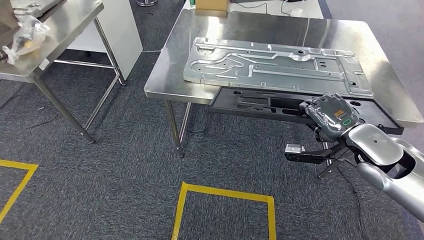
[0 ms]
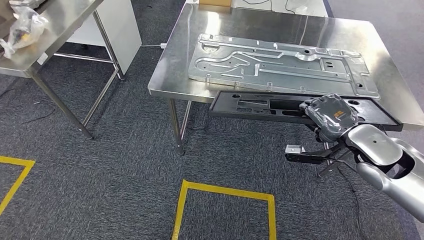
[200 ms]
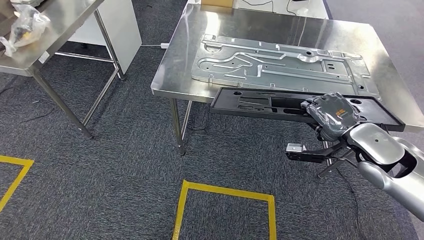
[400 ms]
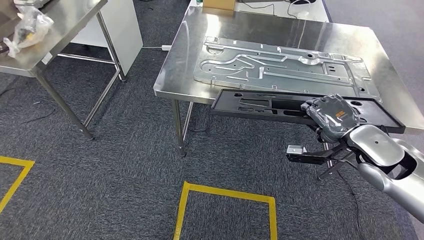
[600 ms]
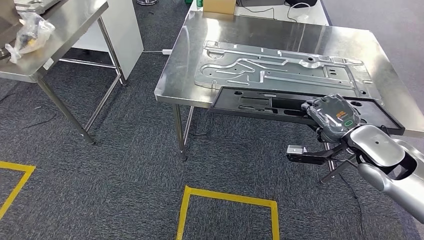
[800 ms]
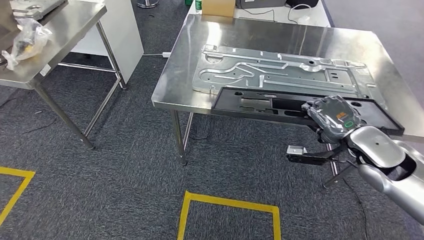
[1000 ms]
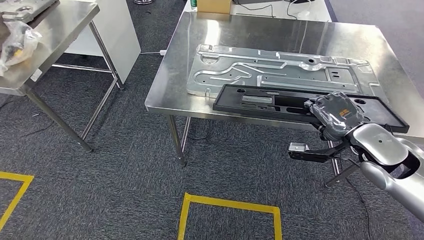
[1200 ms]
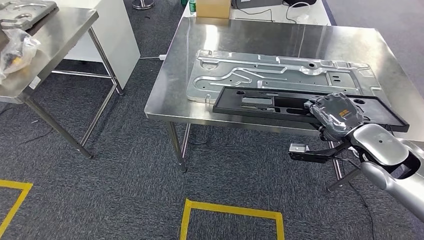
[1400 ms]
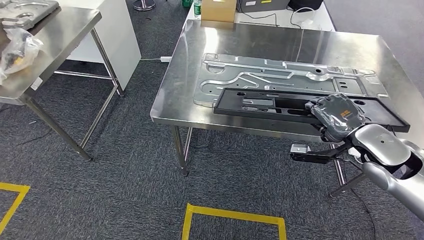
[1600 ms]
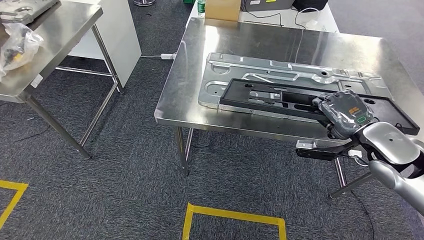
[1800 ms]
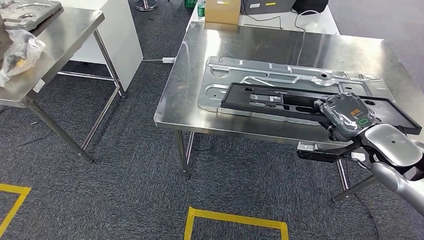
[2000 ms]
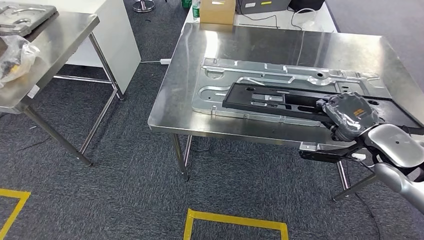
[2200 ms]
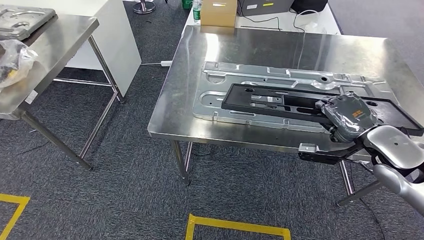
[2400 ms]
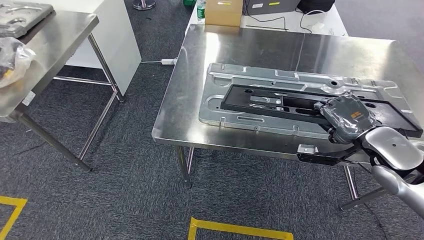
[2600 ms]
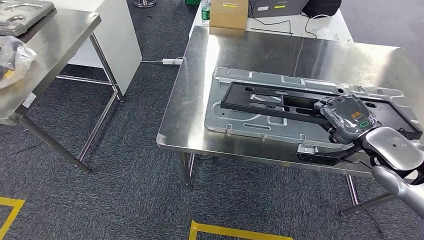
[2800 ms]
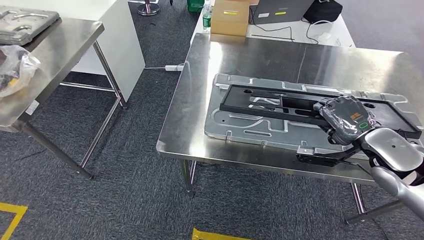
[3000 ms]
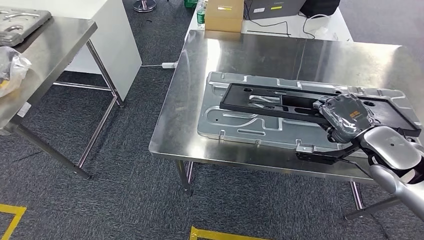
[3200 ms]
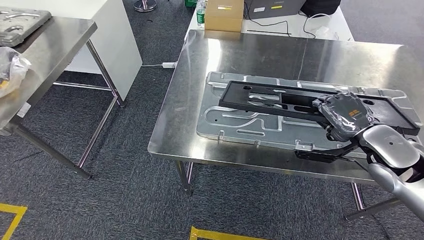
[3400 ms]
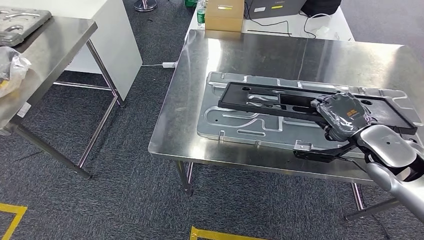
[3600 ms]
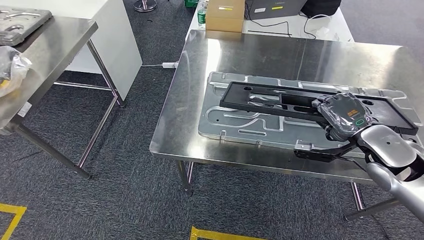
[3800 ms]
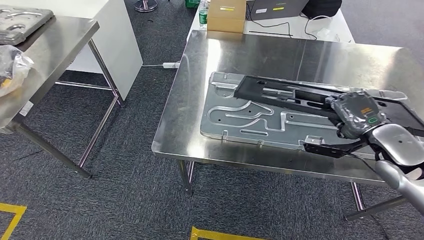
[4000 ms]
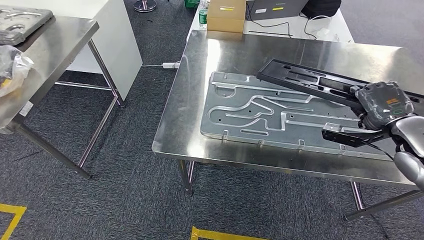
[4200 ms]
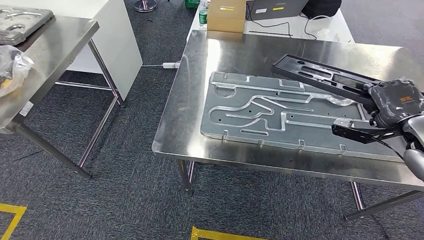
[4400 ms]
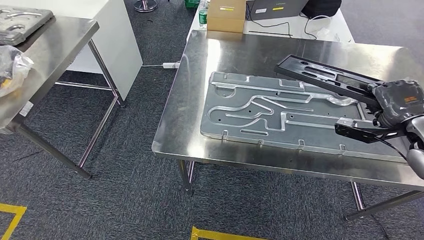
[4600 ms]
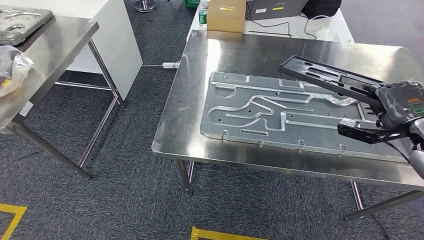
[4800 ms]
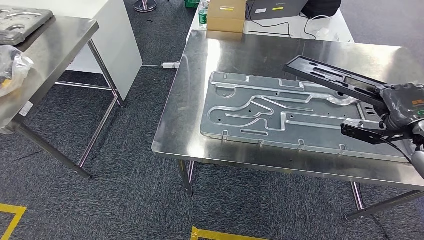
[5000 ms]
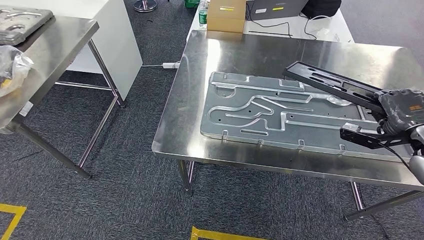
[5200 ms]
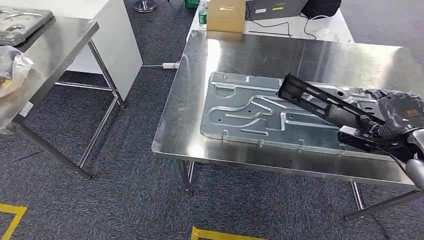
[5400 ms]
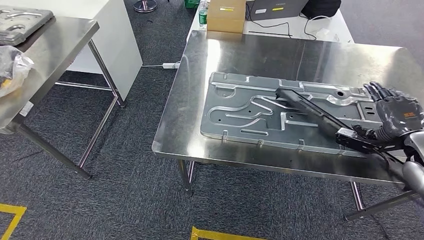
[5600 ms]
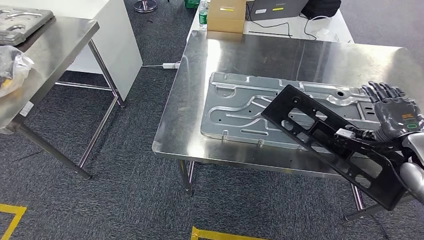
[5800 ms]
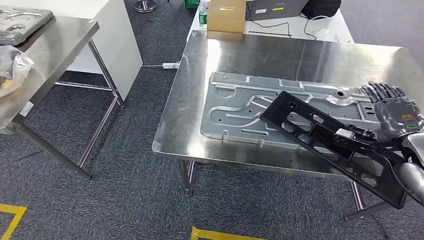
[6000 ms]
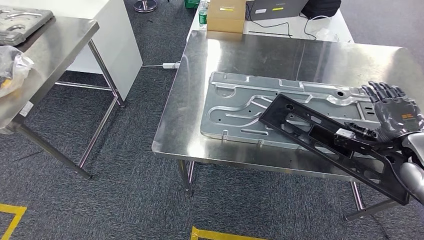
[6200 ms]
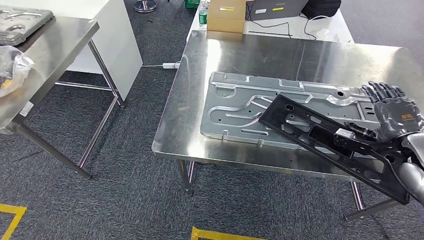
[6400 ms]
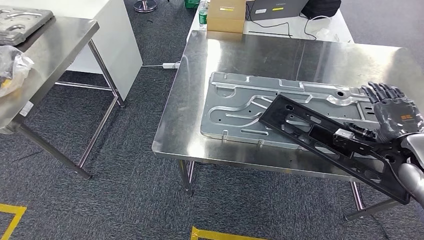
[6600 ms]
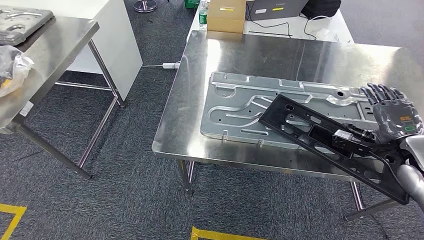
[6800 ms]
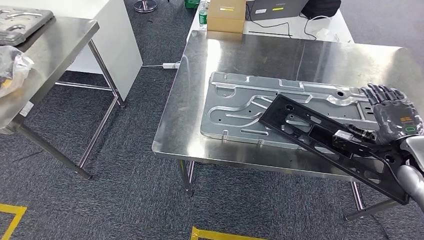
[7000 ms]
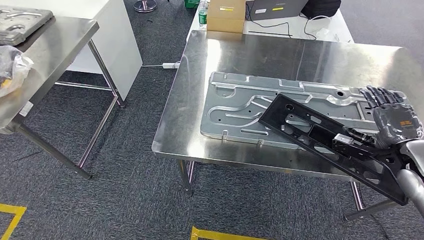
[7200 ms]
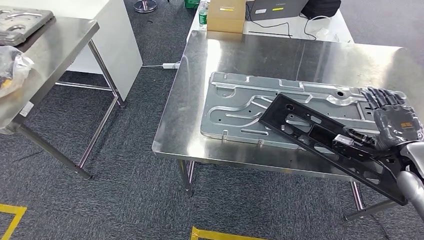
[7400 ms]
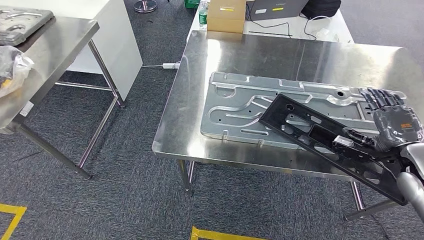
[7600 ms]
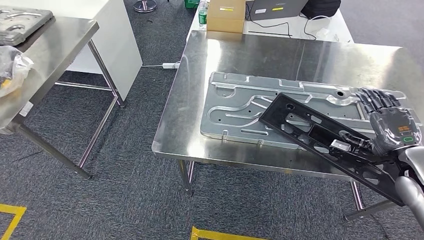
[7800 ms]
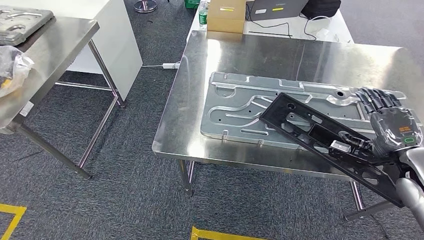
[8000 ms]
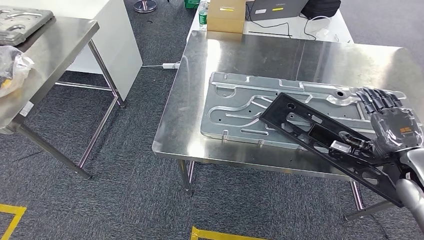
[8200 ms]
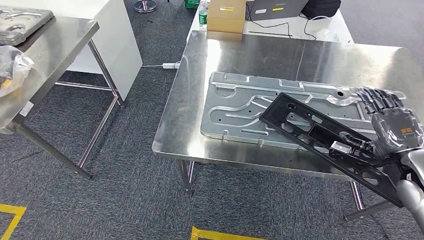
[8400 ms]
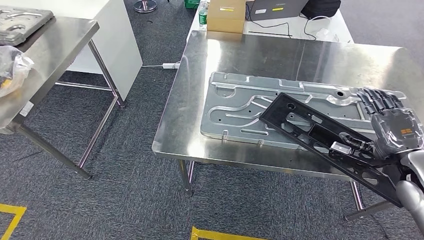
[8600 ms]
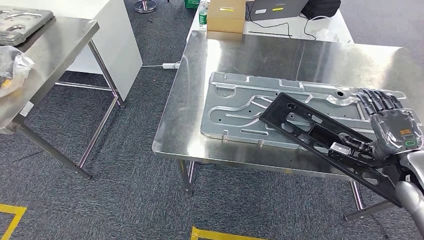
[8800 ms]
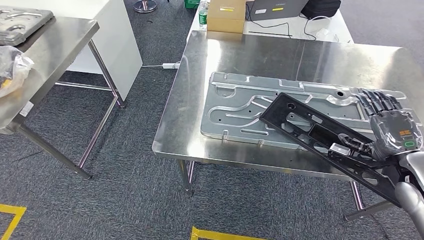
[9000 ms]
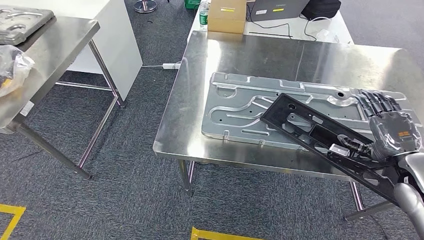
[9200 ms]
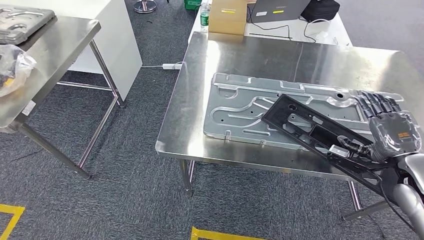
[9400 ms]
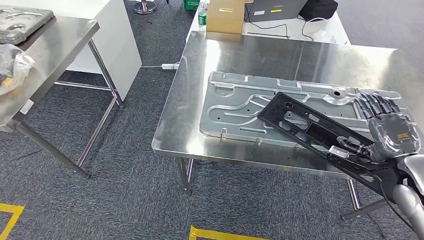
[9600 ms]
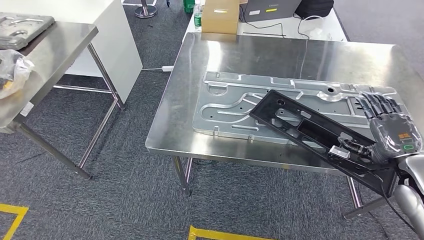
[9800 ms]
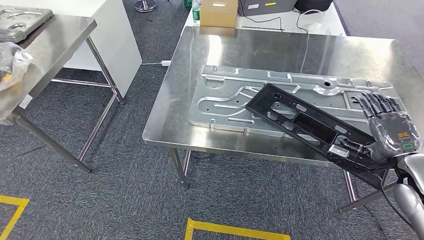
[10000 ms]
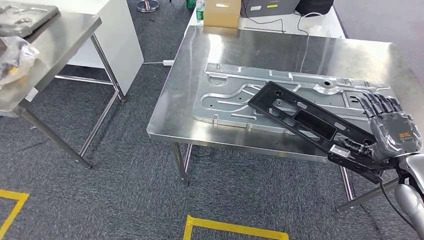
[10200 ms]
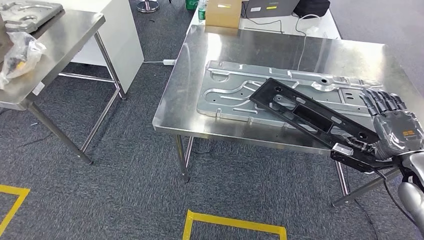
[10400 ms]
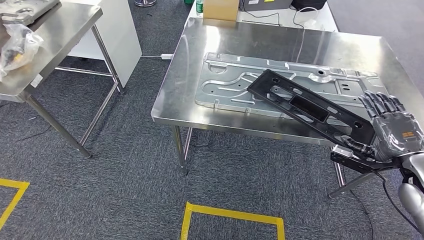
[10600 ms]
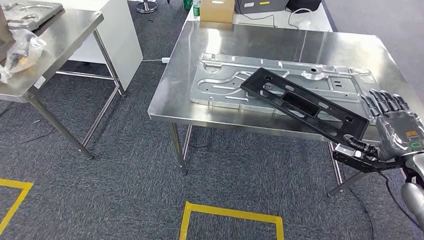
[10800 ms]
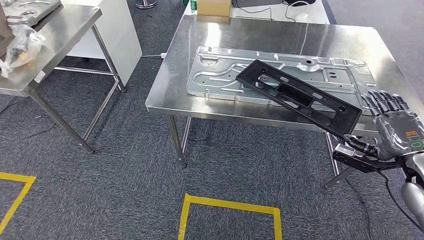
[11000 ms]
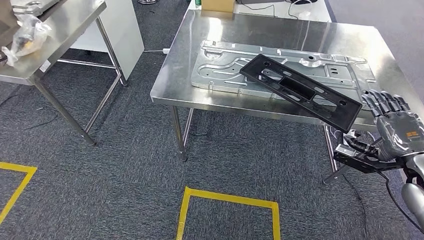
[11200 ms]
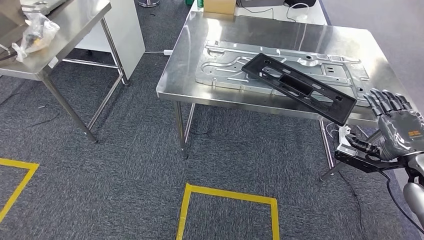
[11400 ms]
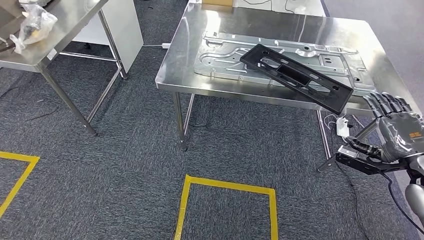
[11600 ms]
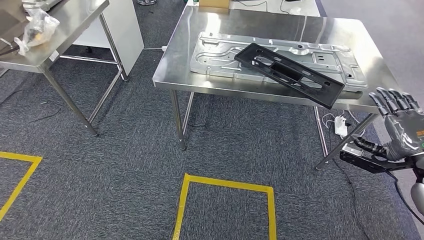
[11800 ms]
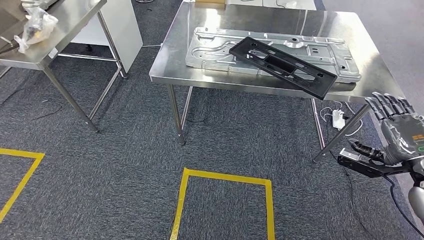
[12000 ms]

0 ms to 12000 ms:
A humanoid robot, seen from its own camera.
Step, 2400 ms to 6400 ms: Insert the large parts into the corresponding slots on the workbench.
4400 ms to 6000 ms: The right hand shifts about 5 cm downward.
6000 ms to 9000 ms: The hands stay close to where they were, moving slightly.

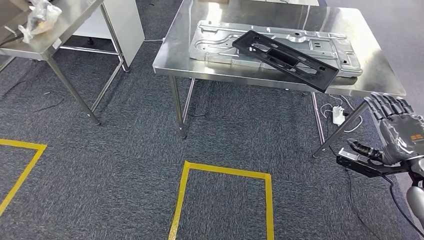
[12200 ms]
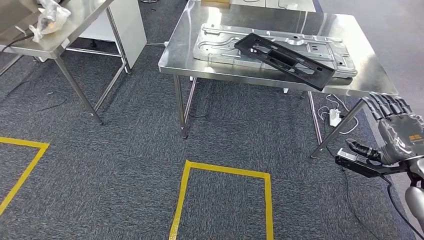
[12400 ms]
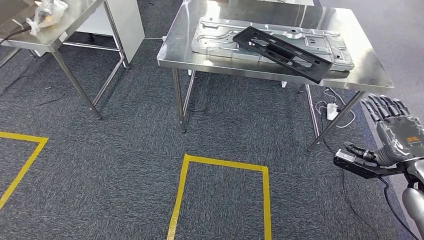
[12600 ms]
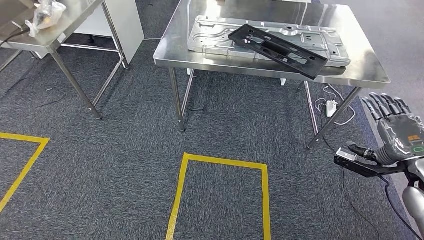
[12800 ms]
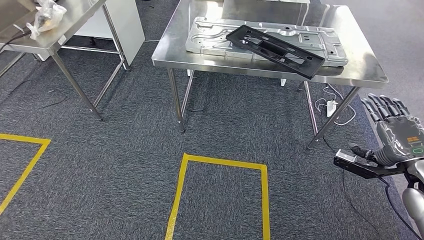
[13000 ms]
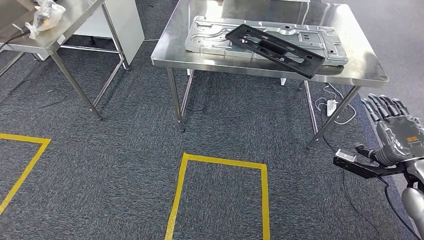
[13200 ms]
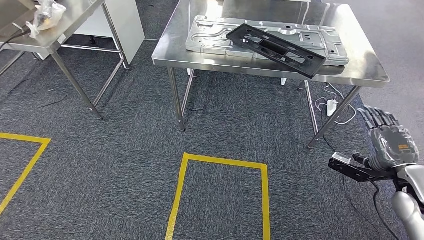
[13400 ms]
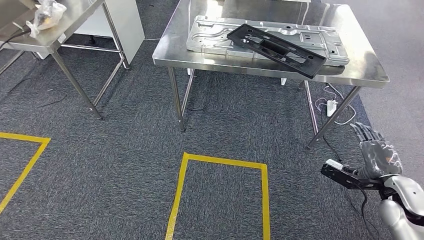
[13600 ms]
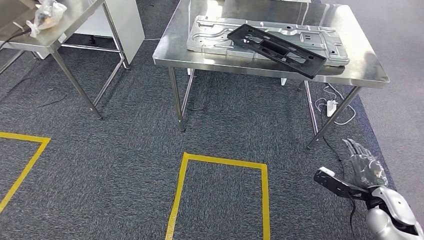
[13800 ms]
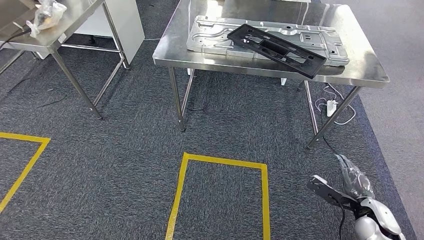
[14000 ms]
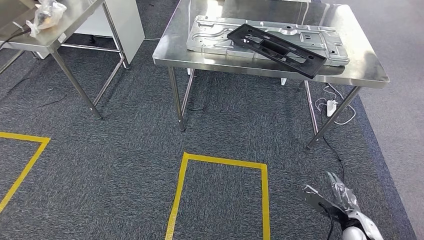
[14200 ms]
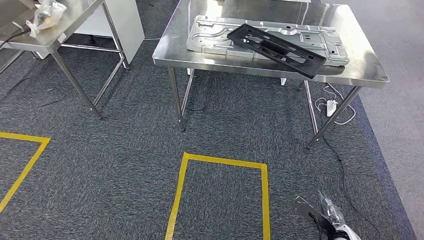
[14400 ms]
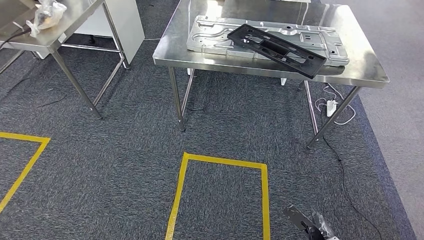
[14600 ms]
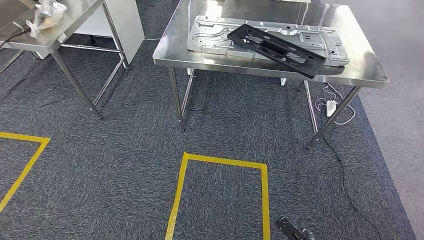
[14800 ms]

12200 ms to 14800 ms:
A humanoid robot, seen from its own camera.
Step, 12200 ms to 14600 ms: Return to the initial position at the shelf.
13400 ms to 14800 ms: The right hand moves downward and to the left, some 35 cm.
